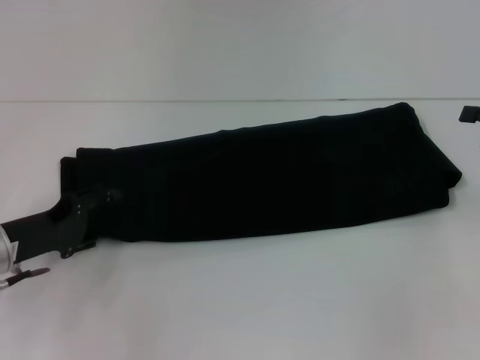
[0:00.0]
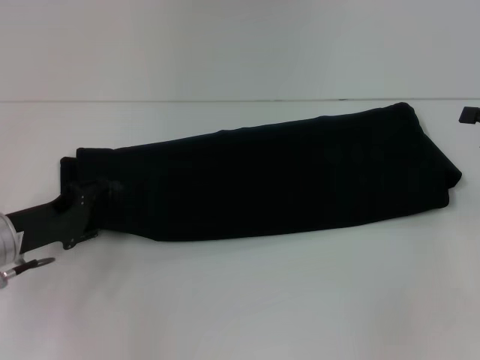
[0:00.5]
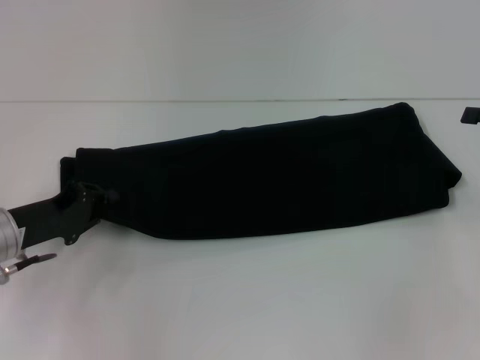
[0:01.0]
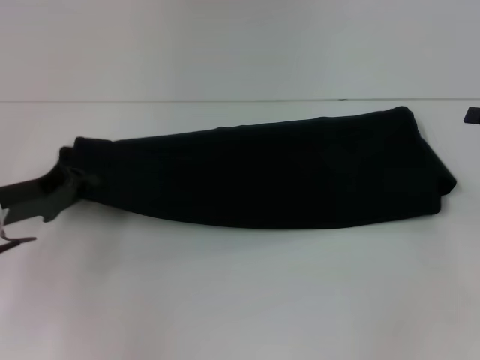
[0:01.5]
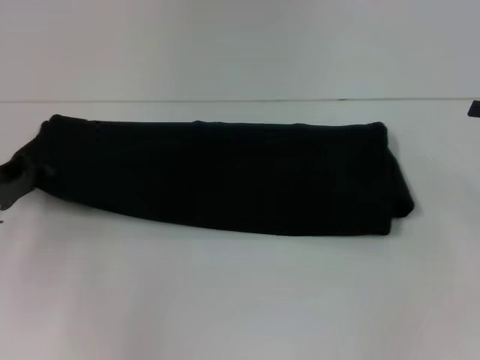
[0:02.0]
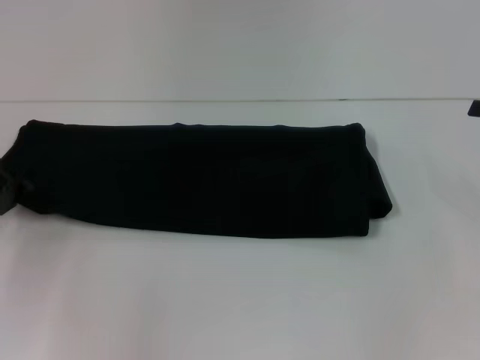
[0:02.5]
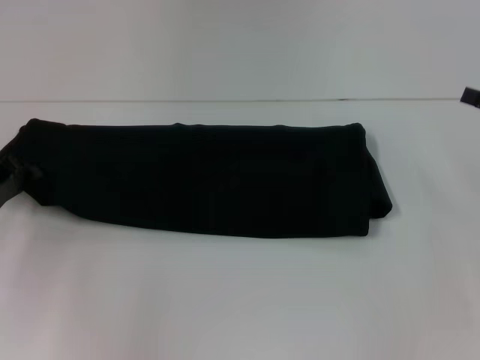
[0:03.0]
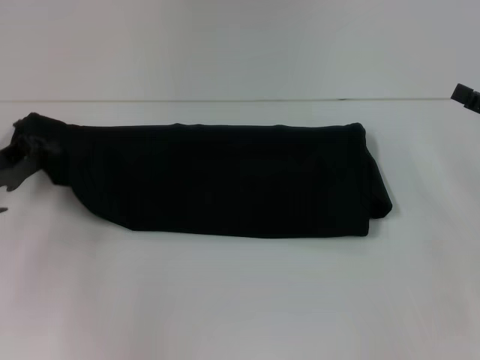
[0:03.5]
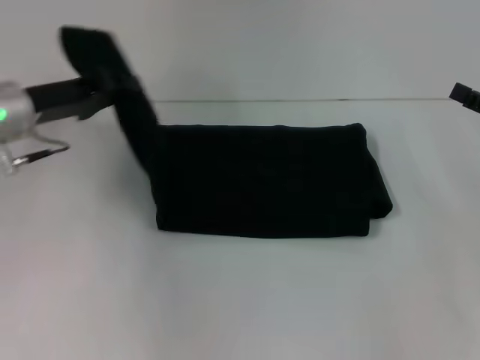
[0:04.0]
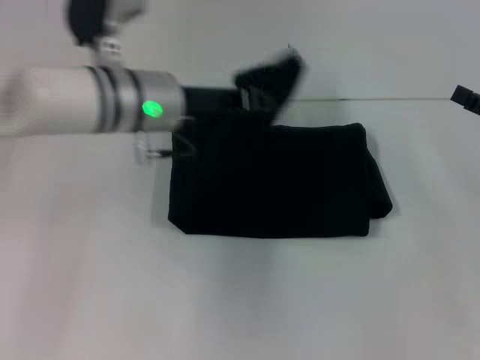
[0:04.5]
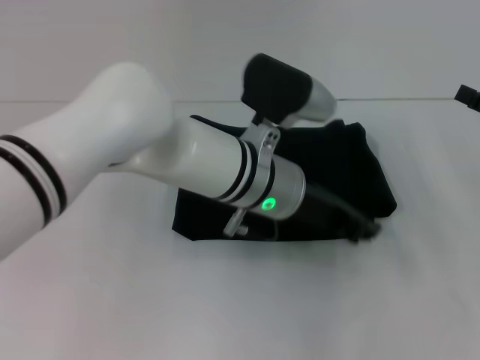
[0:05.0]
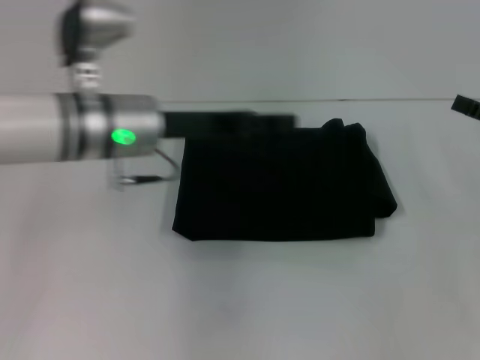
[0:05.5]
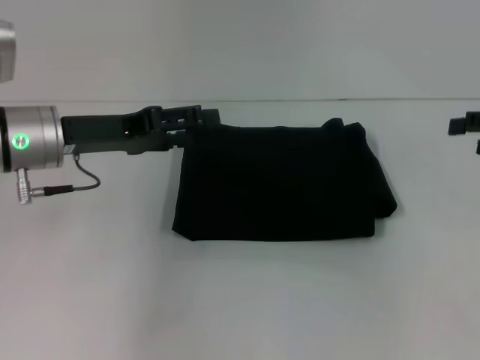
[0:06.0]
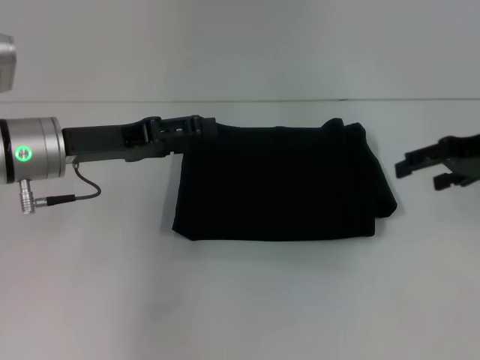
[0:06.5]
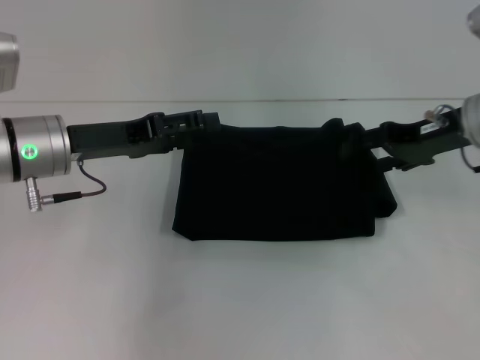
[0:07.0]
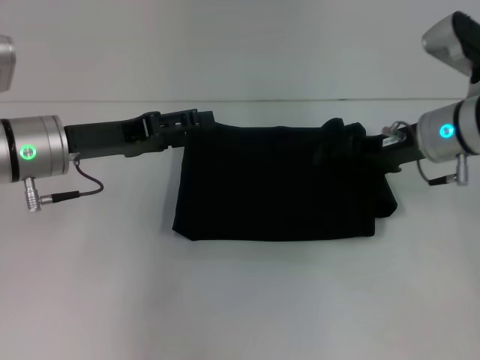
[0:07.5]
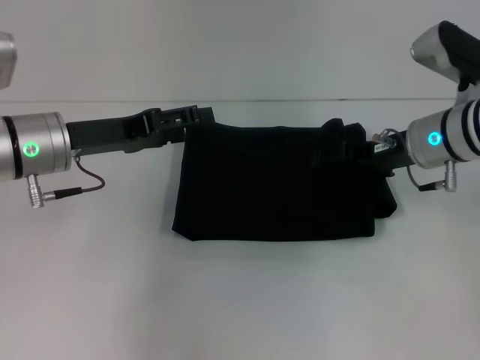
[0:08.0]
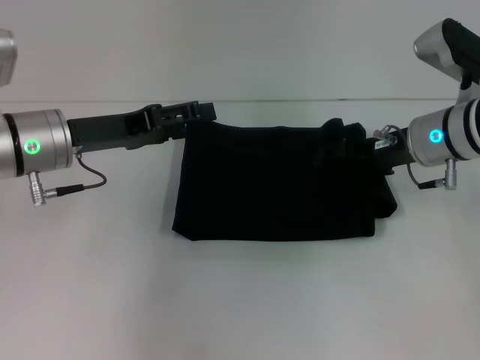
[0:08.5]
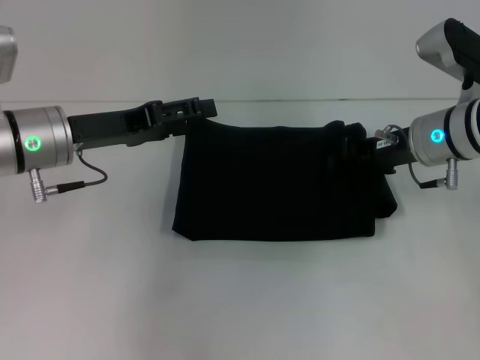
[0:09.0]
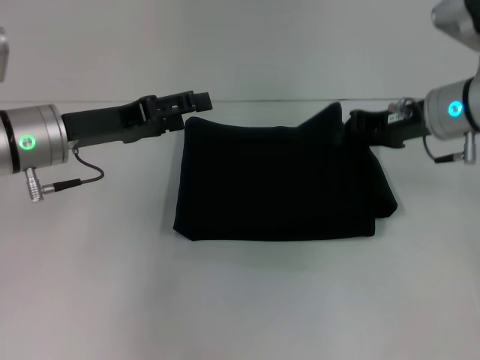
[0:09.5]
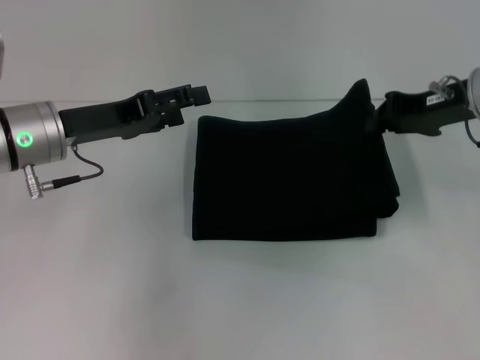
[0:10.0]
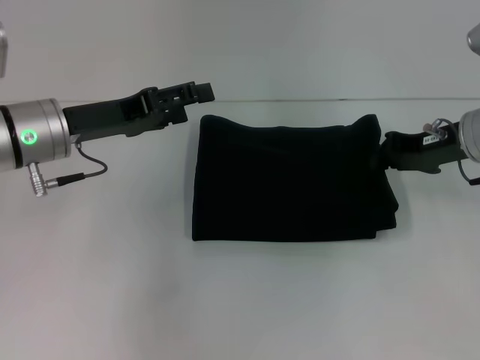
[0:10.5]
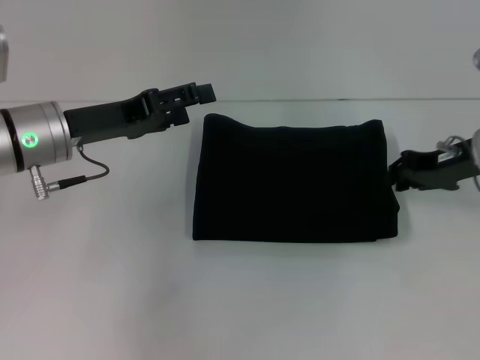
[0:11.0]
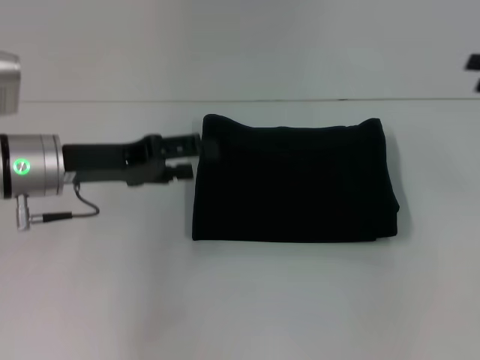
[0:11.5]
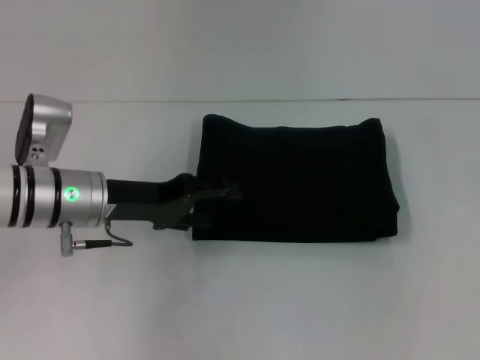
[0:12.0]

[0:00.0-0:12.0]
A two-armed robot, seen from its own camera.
0:00.0 to 0:02.0: The left gripper changes place by some 5 cm, and closes.
0:02.0 to 0:04.0: The left gripper travels upward and to the right by about 10 cm.
0:04.0 to 0:06.0: The right gripper goes approximately 5 cm upward. Meanwhile the left gripper travels to the right and back again, roughly 25 cm each way, and opens.
0:06.0 to 0:08.0: The right gripper is displaced to the left by some 15 cm.
0:08.0 to 0:10.0: The right gripper moves upward, about 5 cm, and closes up.
0:10.0 to 0:12.0: The left gripper ends up roughly 5 cm from where it was. Meanwhile the right gripper heads to the right, covering about 15 cm, and opens.

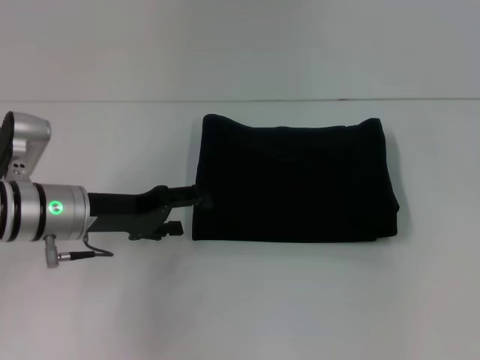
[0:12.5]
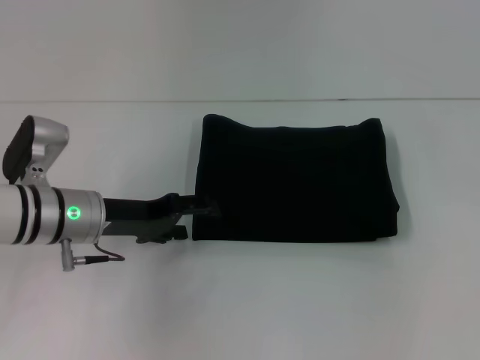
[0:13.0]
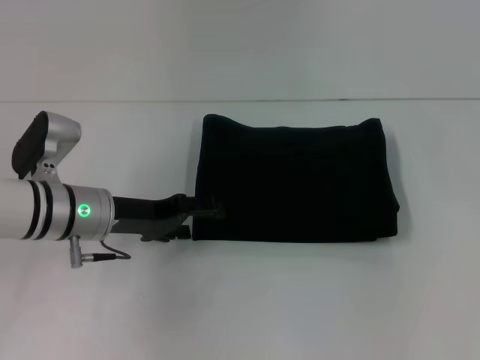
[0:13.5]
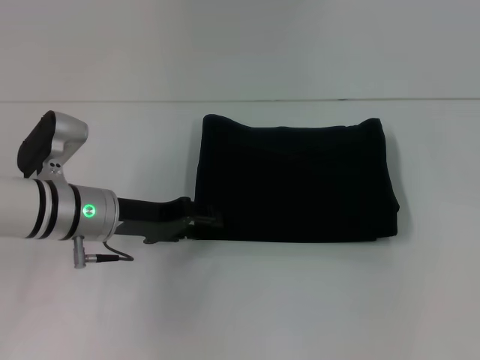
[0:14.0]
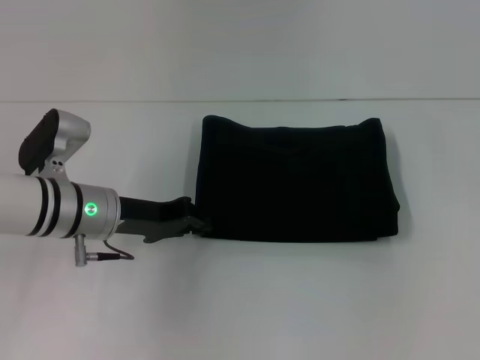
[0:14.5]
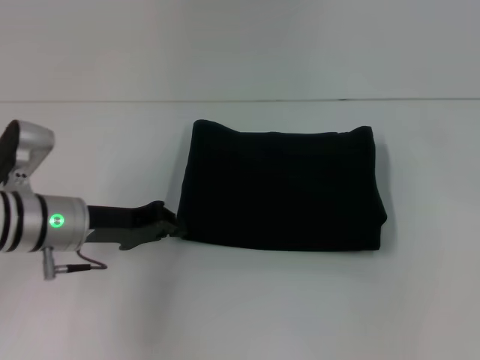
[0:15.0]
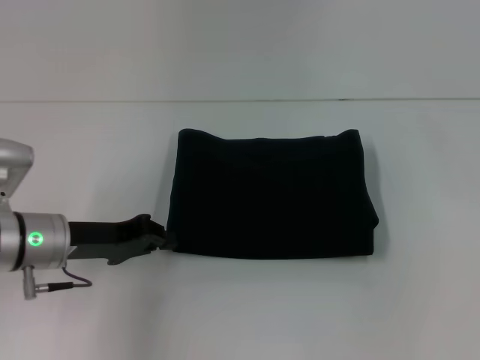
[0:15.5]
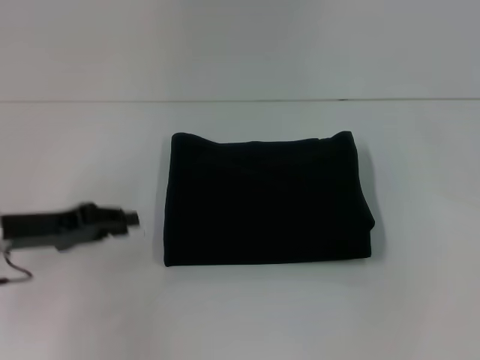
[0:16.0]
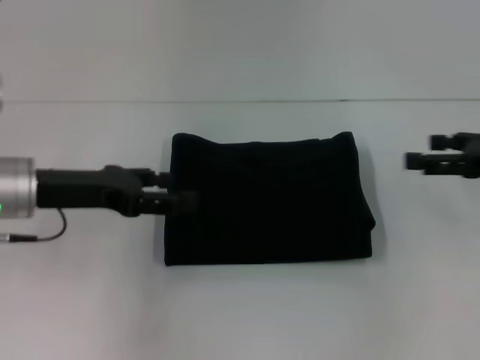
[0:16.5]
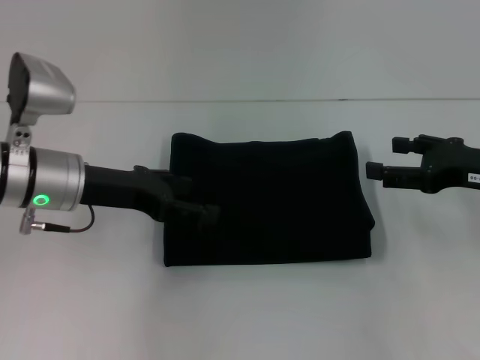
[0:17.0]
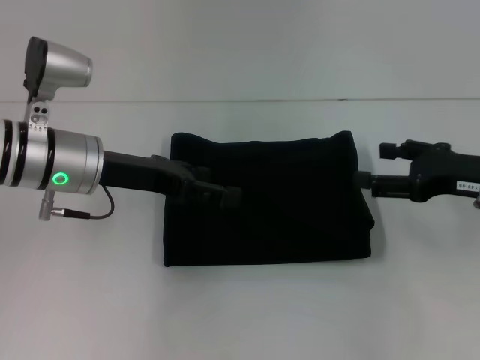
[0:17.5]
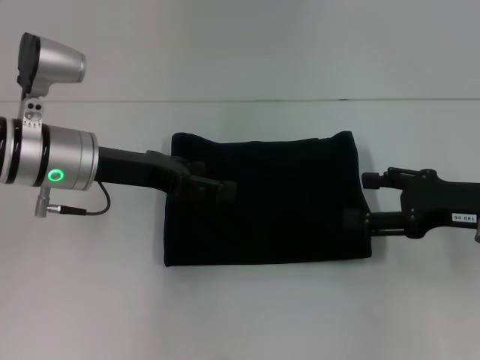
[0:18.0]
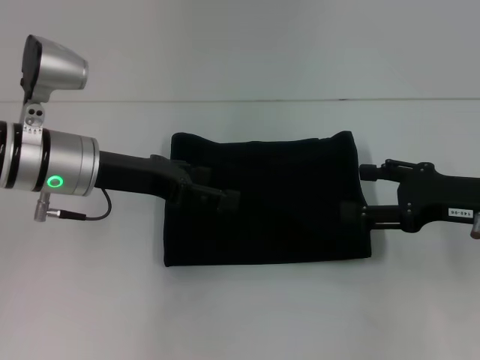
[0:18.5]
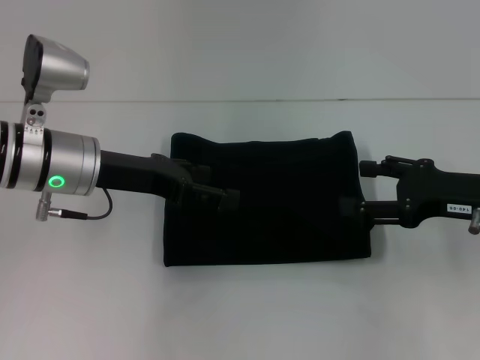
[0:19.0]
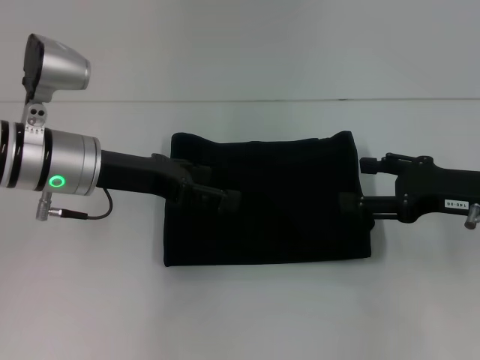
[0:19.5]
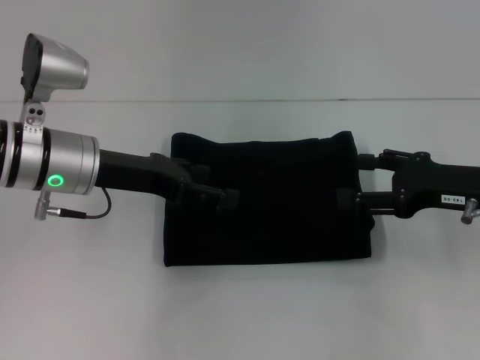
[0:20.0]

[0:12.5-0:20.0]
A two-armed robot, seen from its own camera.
0:12.5 to 0:14.5: The left gripper closes its fingers.
0:14.5 to 0:16.5: The right gripper is displaced downward and to the left by approximately 10 cm. Meanwhile the left gripper goes about 10 cm to the left and upward, and closes, then opens again.
0:16.5 to 0:18.0: The right gripper heads to the left, covering about 5 cm; the left gripper heads to the right, covering about 5 cm, and opens its fingers.
0:18.0 to 0:20.0: The grippers stay close to where they were, moving slightly.

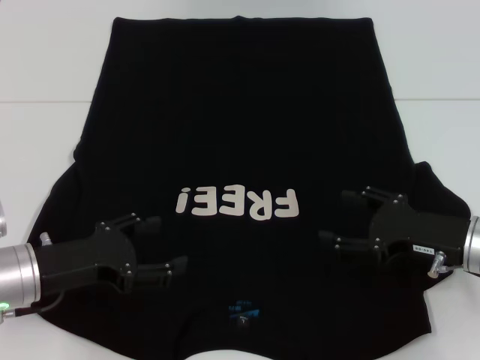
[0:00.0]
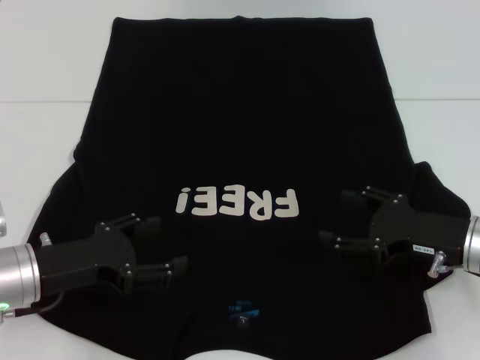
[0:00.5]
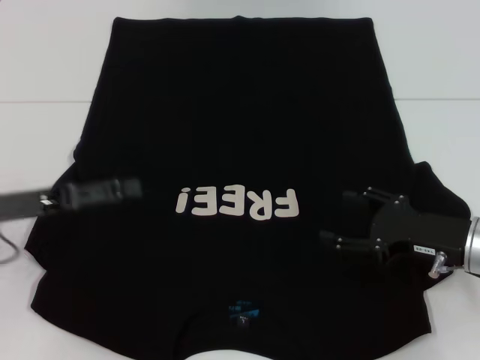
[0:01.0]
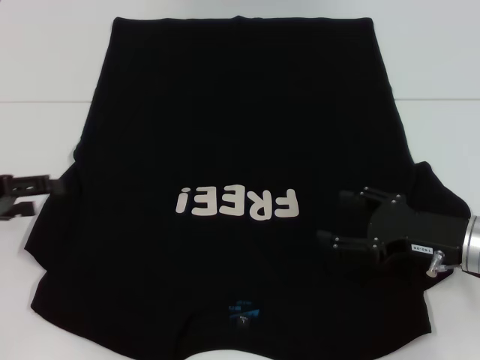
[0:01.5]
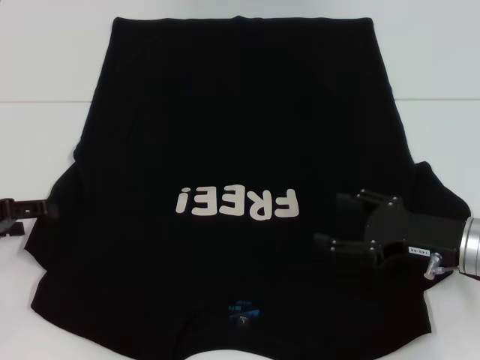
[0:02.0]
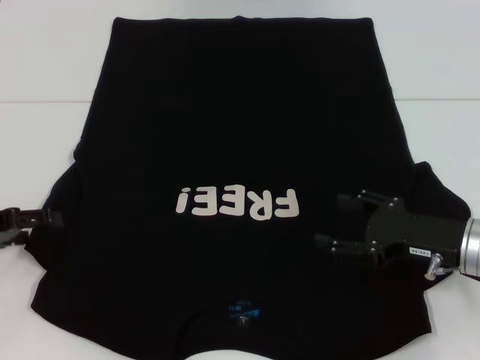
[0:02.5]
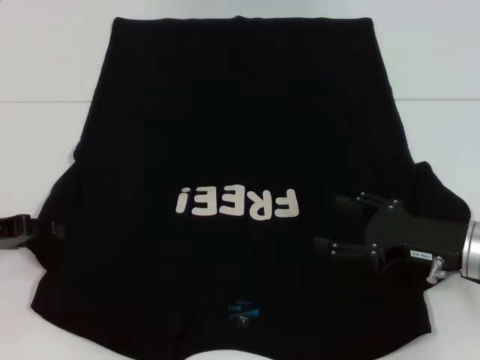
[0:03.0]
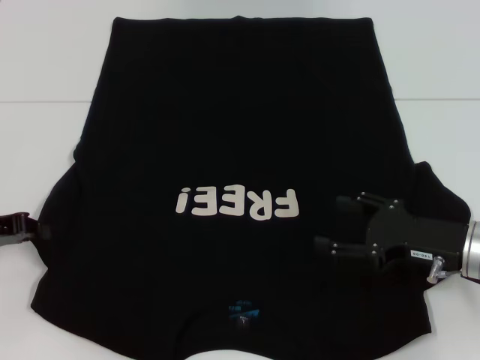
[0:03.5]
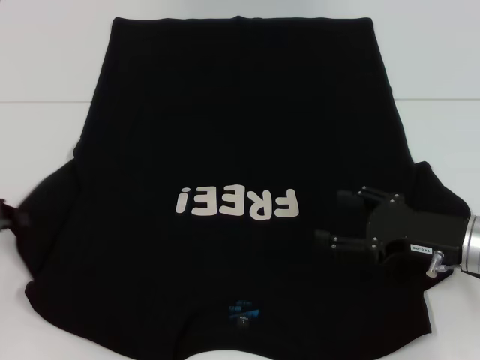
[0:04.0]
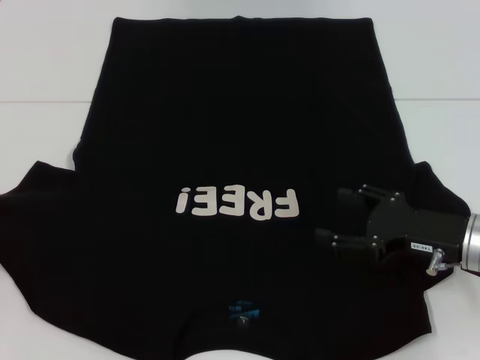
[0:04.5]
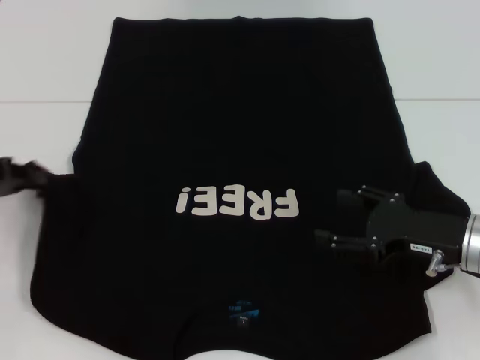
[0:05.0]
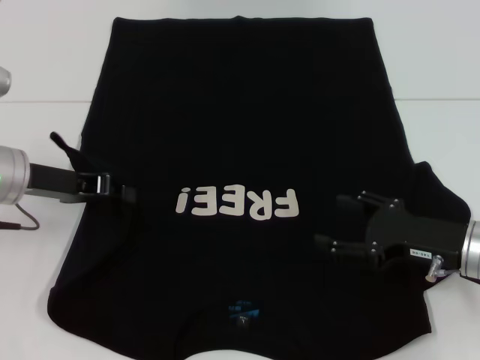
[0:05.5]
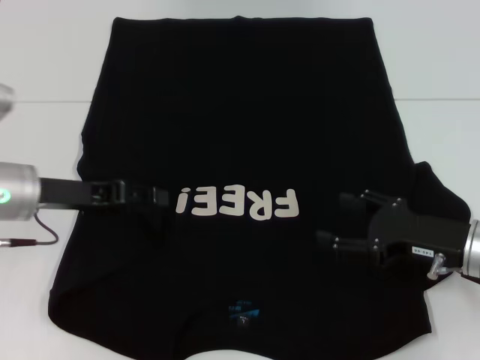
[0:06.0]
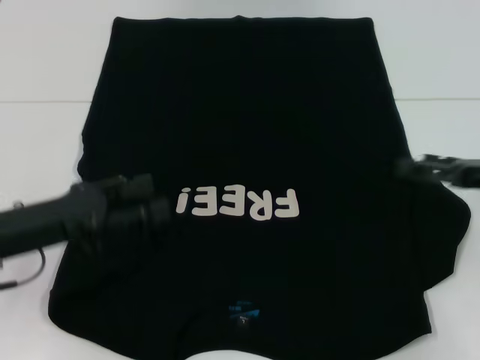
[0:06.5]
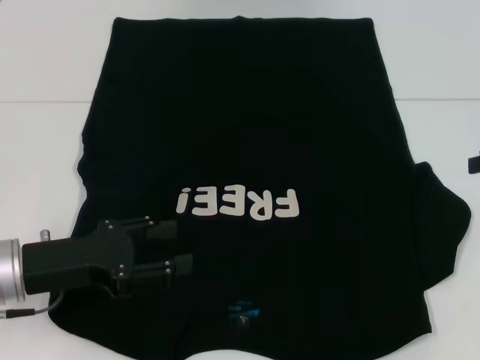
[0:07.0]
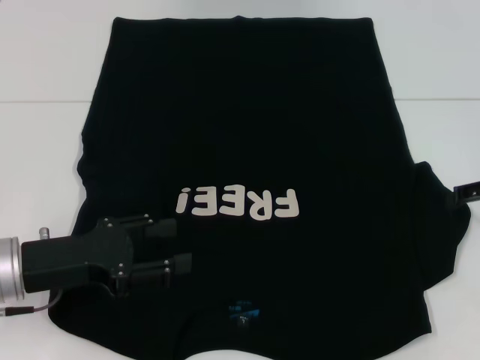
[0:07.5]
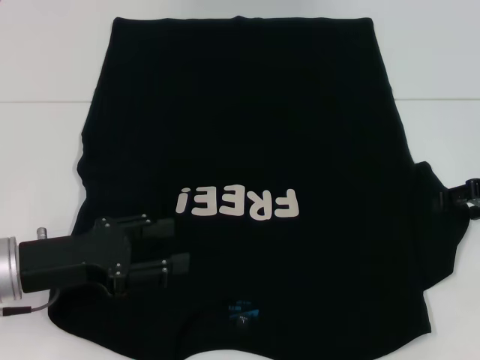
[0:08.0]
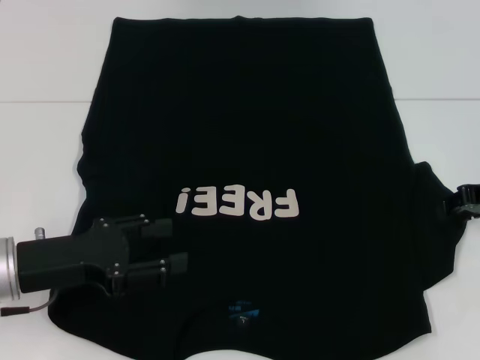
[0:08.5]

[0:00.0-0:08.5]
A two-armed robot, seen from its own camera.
Step, 0:00.0 to 0:06.0: Fold the bottom left sleeve with your left hand.
0:00.0 to 0:02.0: The left gripper moves to the left, roughly 10 cm.
0:02.0 to 0:04.0: The left gripper closes up.
0:04.0 to 0:06.5: The right gripper goes roughly 10 cm to the right and upward, while the left gripper travels to the right by approximately 10 cm, and opens up.
0:06.5 to 0:08.5: The right gripper heads forward, covering some 5 cm, moves about 10 cm upward and comes back, and closes its fingers.
